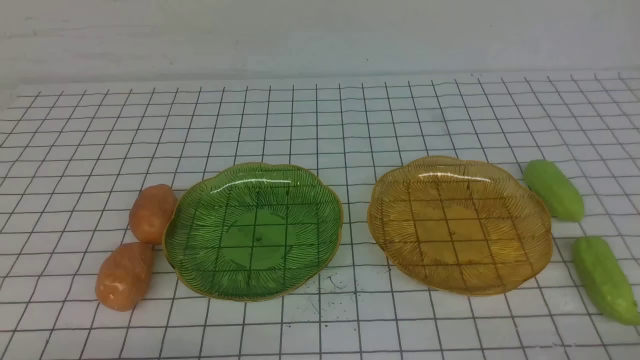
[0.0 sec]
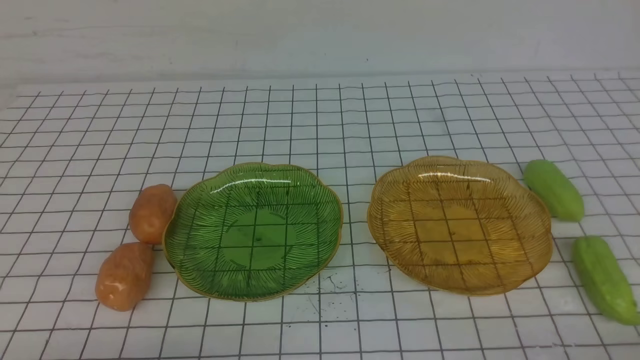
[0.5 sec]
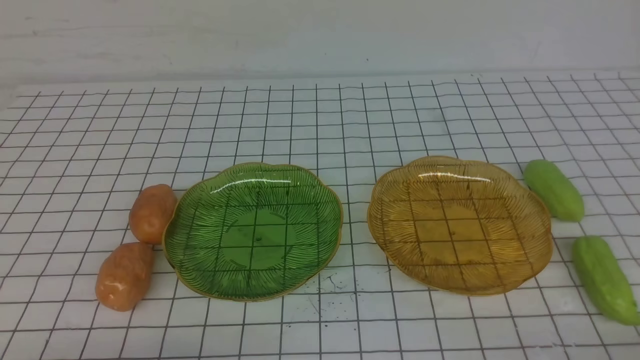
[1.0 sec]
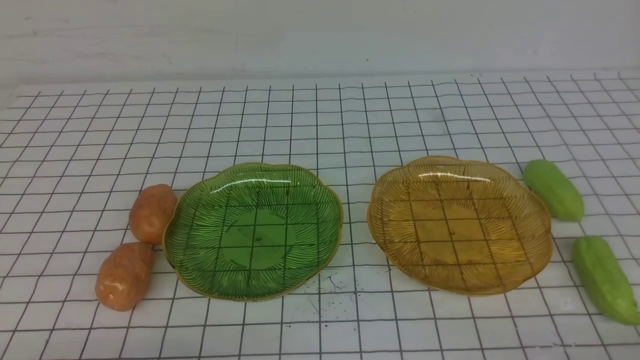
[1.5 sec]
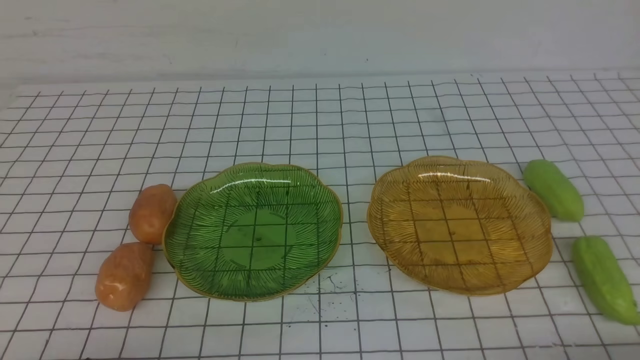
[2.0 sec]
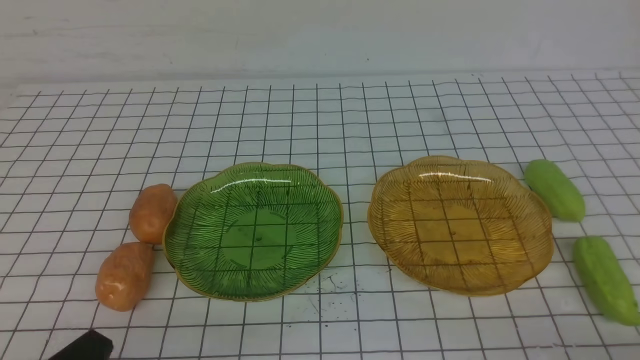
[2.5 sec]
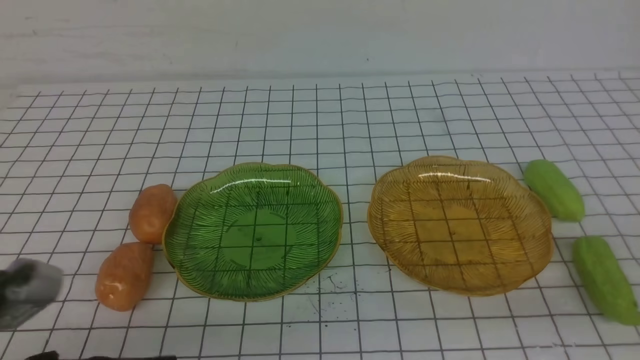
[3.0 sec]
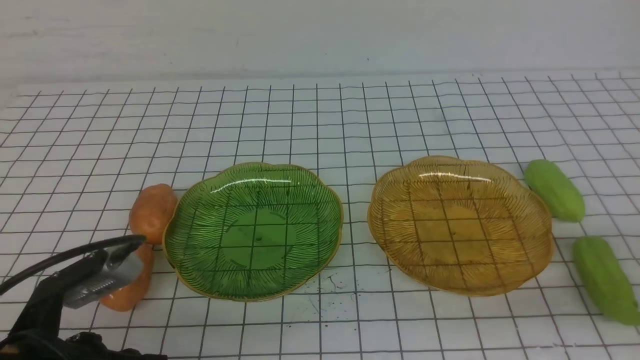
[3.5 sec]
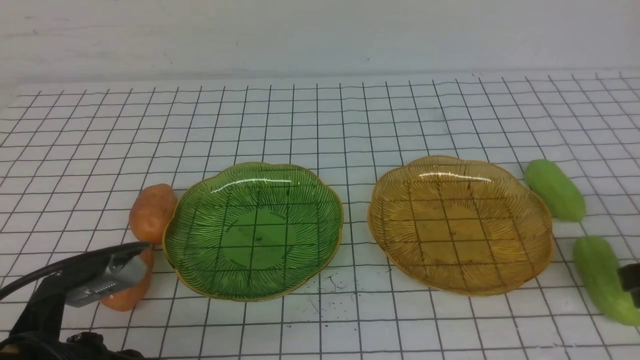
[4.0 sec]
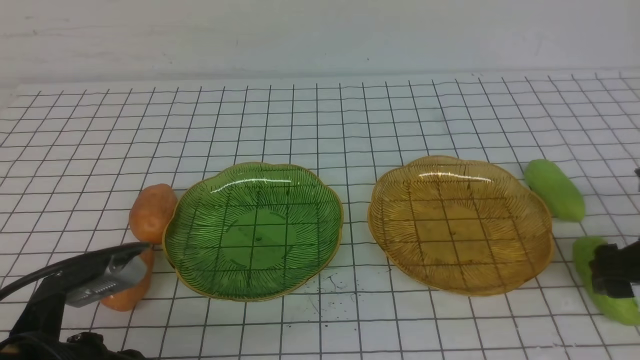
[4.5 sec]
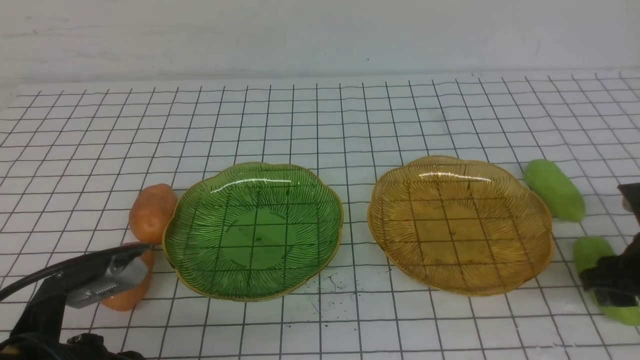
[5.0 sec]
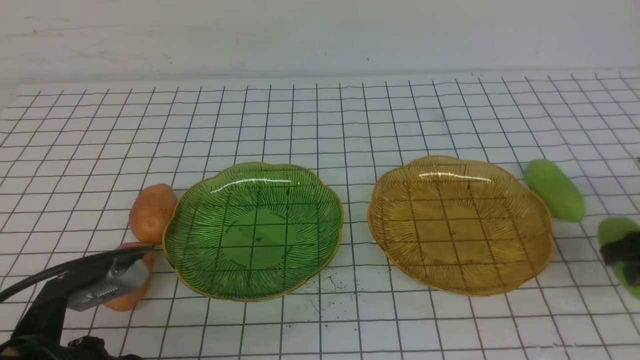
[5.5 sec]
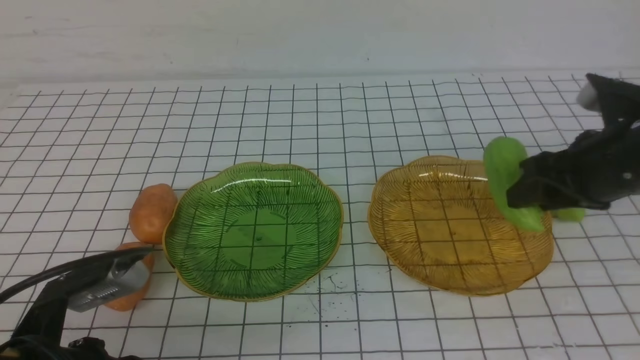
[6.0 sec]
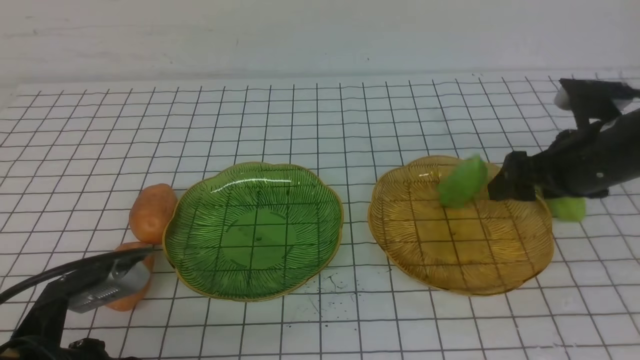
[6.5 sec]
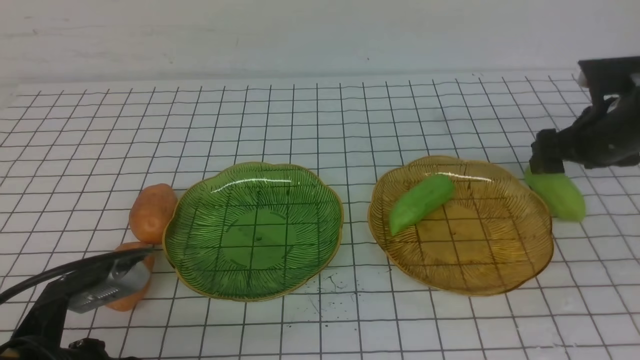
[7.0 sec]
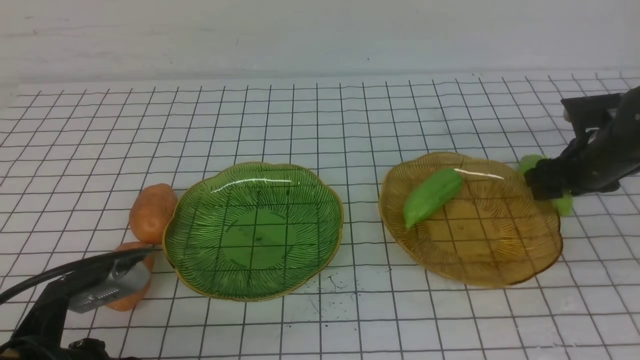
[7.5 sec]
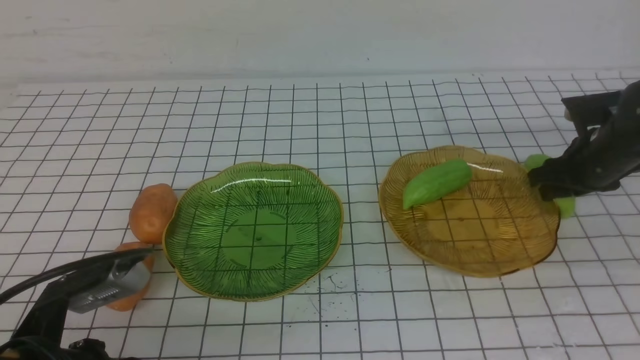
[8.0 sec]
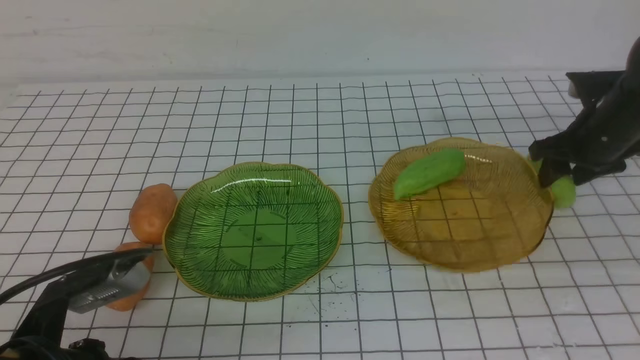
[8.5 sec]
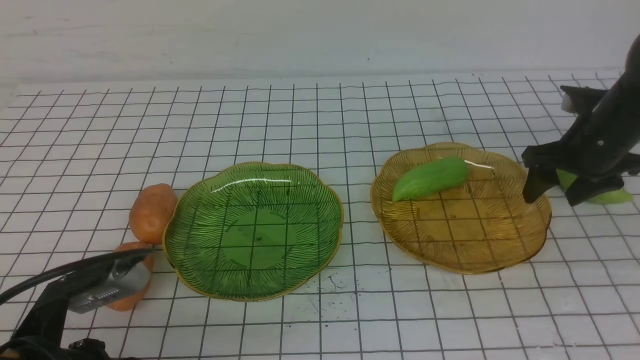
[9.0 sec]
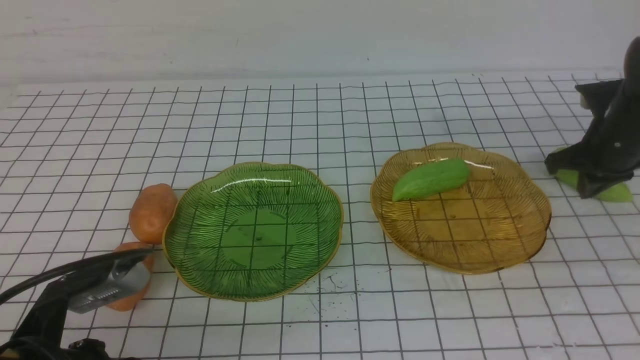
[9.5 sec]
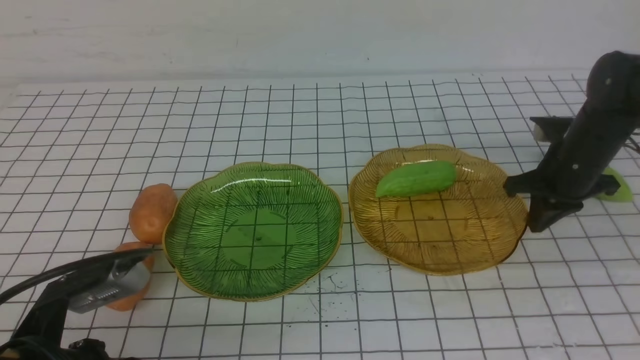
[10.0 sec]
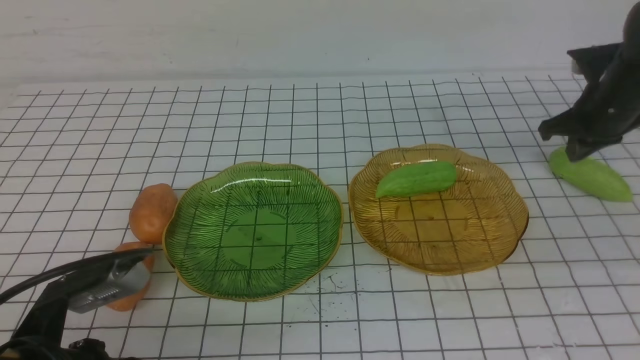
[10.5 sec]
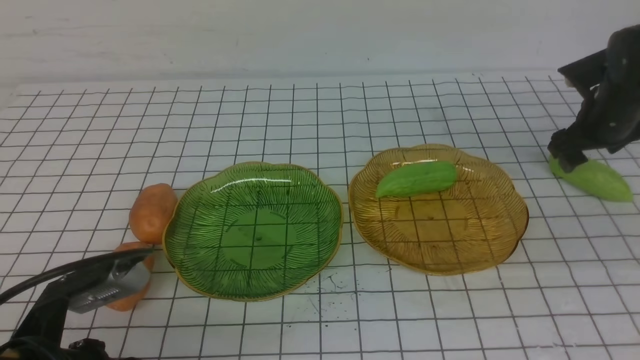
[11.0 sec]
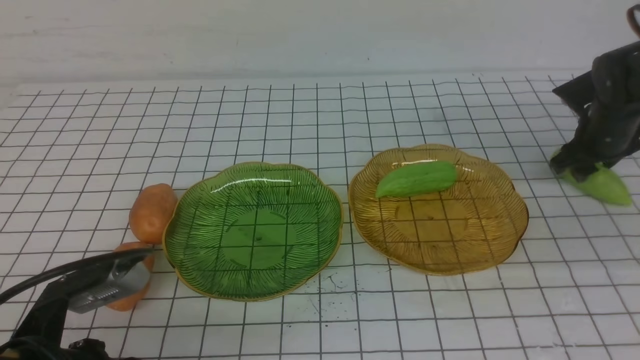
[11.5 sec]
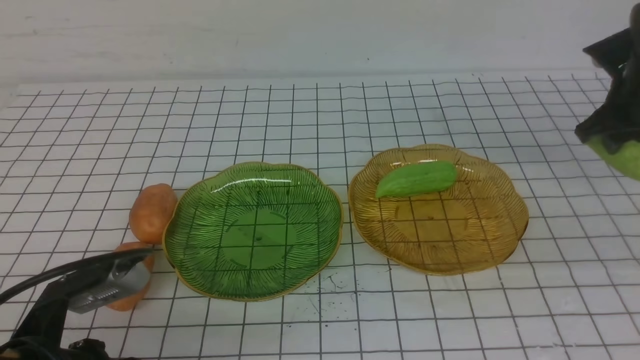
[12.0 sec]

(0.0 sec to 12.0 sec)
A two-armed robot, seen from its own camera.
Step, 0.0 sec - 6.0 sec: use the right arm to grab a chayote and put it into the right plate.
2.0 sec - 4.0 sec: The right gripper shifts about 15 cm forward and upward, and opens up, while the left gripper moves forward, about 10 cm.
4.0 sec - 6.0 sec: The right gripper is displaced forward by roughly 10 cm, and opens, then closes once more.
6.0 sec - 8.0 sec: The right gripper moves forward, downward and to the right, approximately 15 cm, and opens, then closes once more.
8.0 sec - 10.0 sec: The right gripper closes.
10.0 sec - 12.0 sec: The right gripper moves up and down over approximately 5 cm, changing direction 2 times, and opens its fingers.

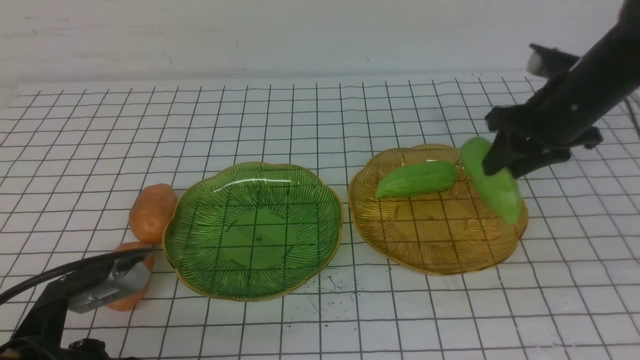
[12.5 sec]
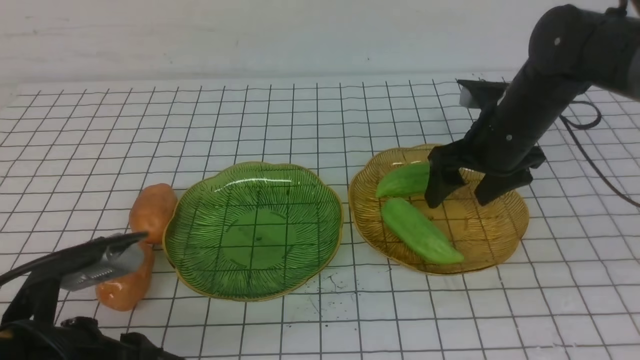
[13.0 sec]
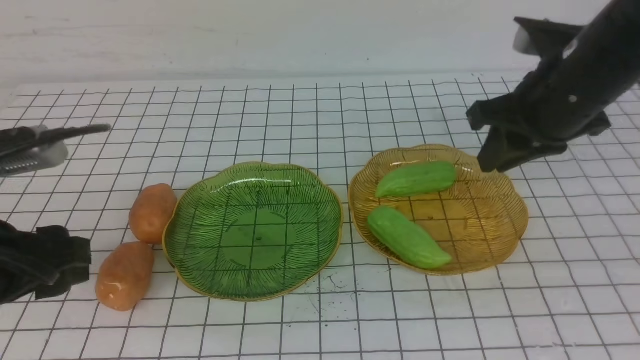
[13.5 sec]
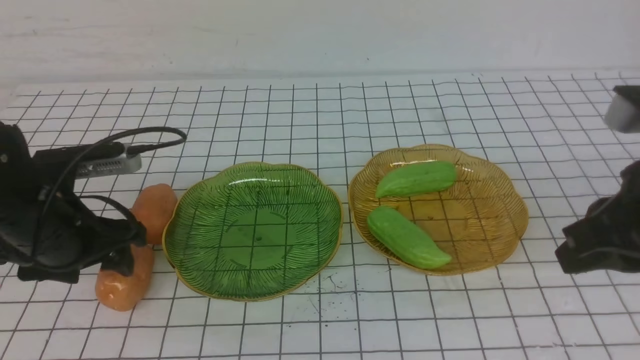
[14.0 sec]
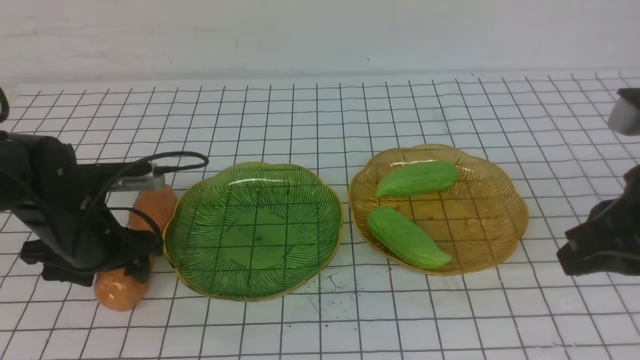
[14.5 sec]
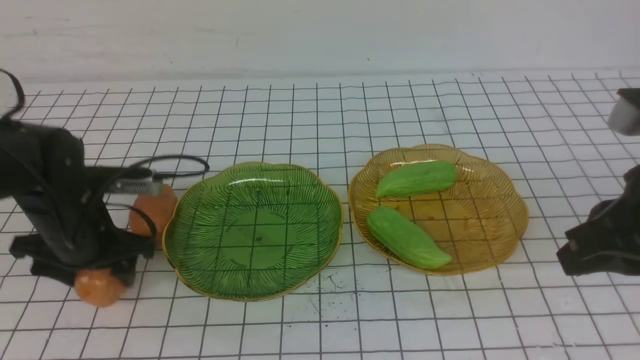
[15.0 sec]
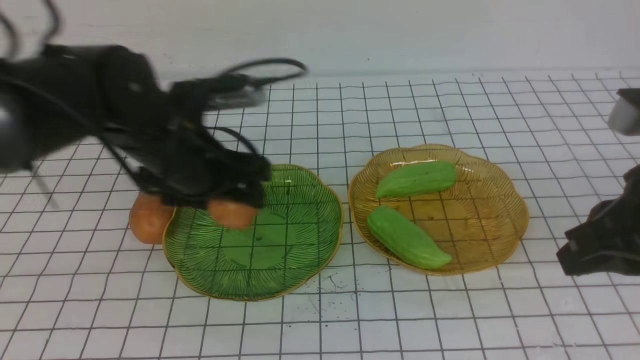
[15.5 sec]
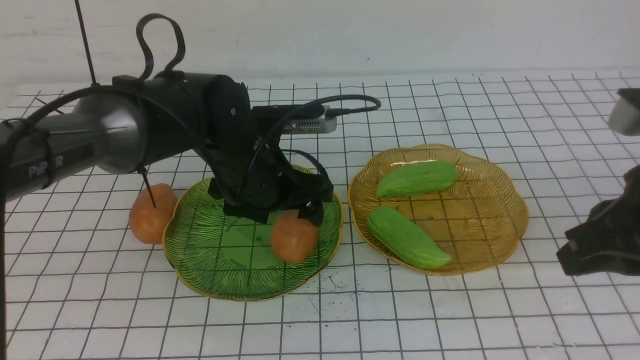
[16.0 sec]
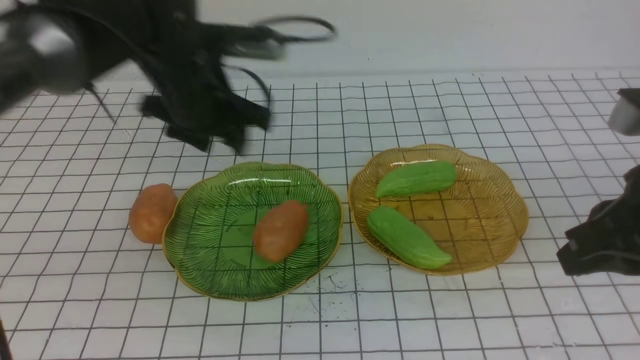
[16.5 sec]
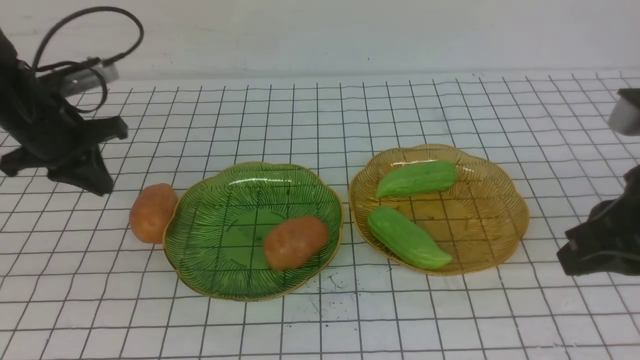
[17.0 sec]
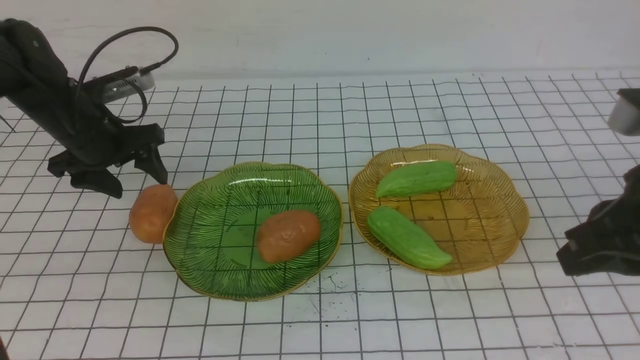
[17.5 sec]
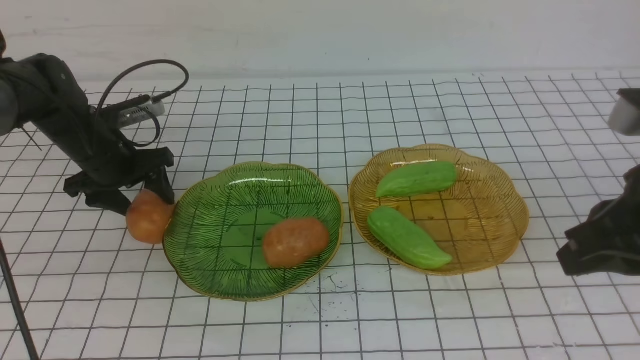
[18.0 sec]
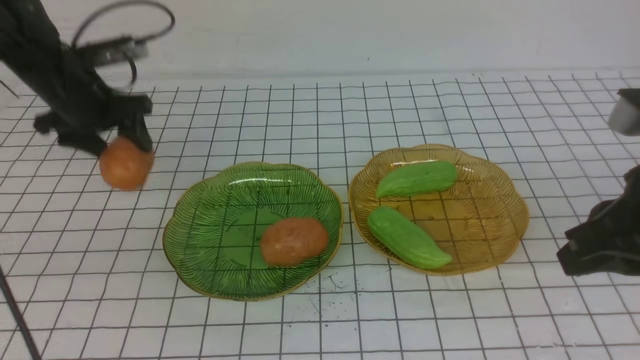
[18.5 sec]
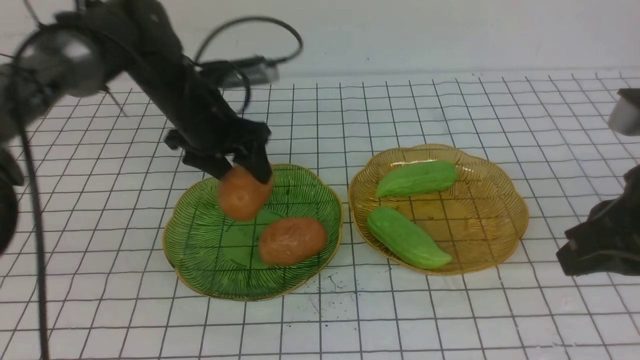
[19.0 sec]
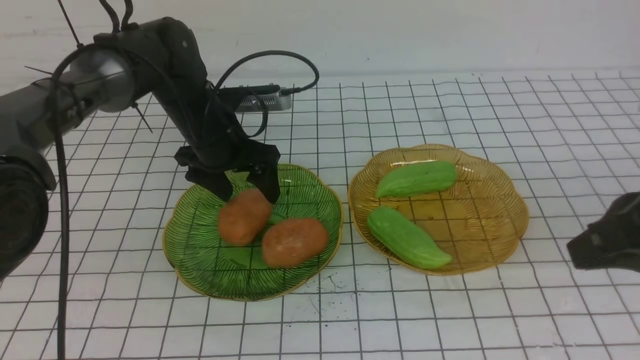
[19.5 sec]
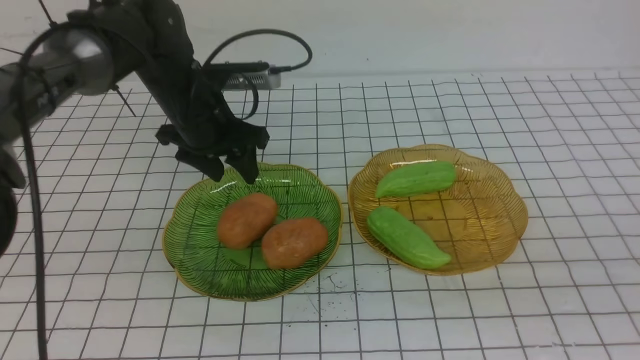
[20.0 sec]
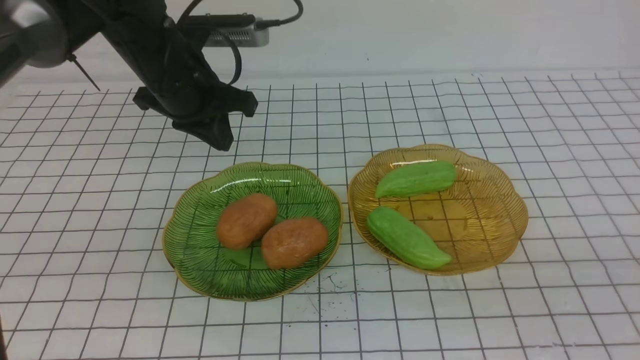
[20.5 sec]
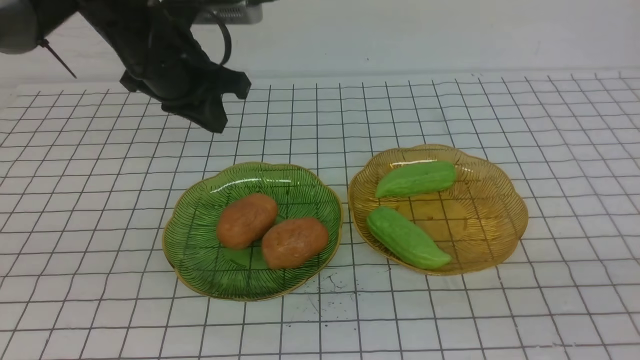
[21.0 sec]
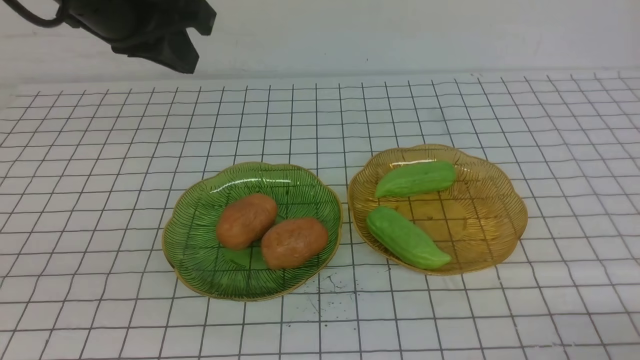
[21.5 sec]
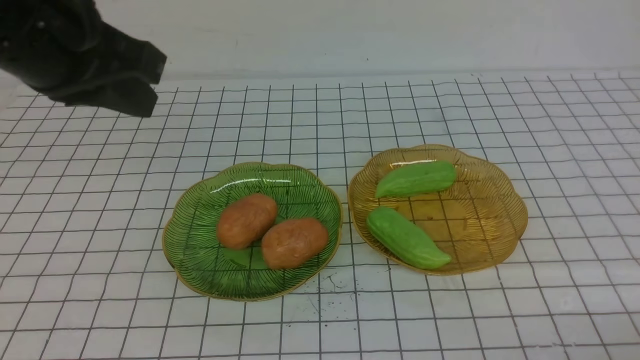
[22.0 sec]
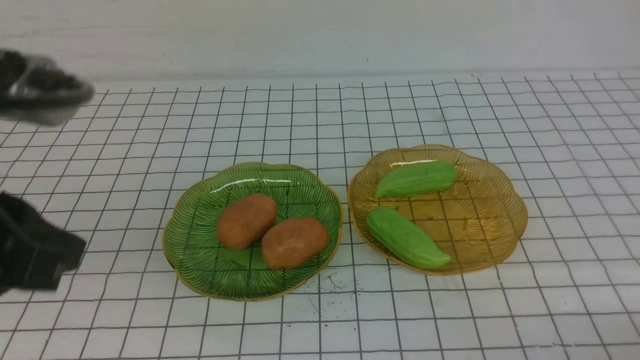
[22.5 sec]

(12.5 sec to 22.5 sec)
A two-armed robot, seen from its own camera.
Step, 13.0 sec - 19.5 sec: Grab a potato with your left arm and put it on the left plate.
12.5 sec - 14.5 sec: The left gripper goes roughly 20 cm forward, and opens; the right gripper moves backward, approximately 20 cm, and closes.
14.5 sec - 16.5 sec: The left gripper is displaced upward, forward and to the right by some 15 cm, and closes up.
16.5 sec - 18.5 sec: The left gripper heads to the left and forward, covering some 10 cm.
18.5 sec - 20.5 sec: The left gripper is displaced to the right by roughly 10 cm, and closes its fingers. Meanwhile the right gripper shifts approximately 15 cm backward.
20.5 sec - 22.5 sec: The right gripper is displaced downward by approximately 15 cm. Meanwhile the left gripper goes approximately 30 cm backward.
